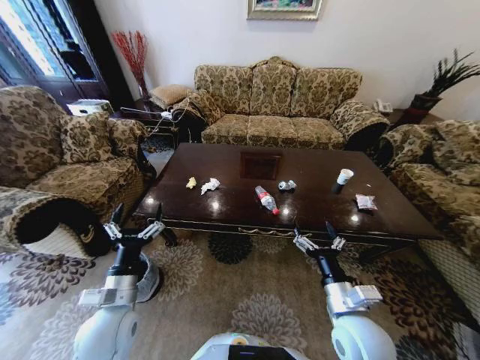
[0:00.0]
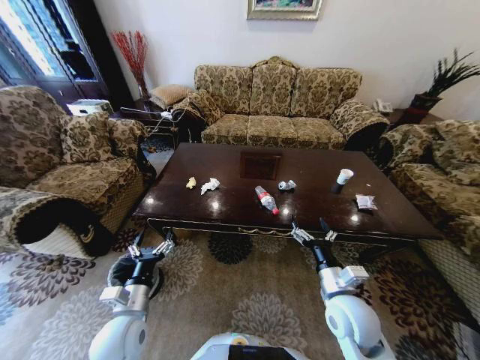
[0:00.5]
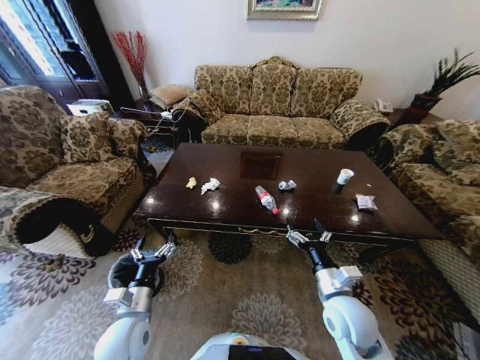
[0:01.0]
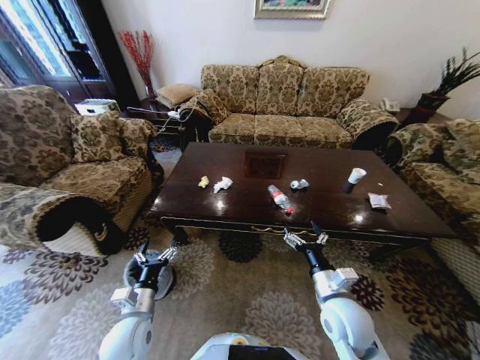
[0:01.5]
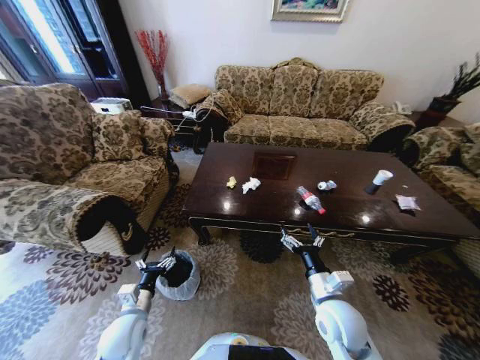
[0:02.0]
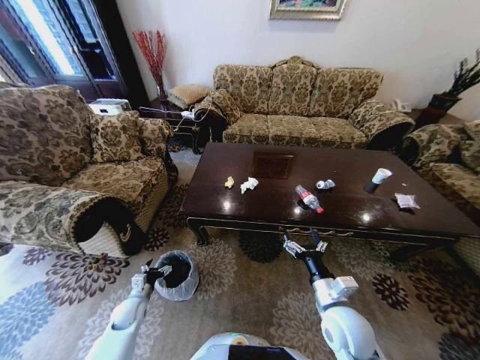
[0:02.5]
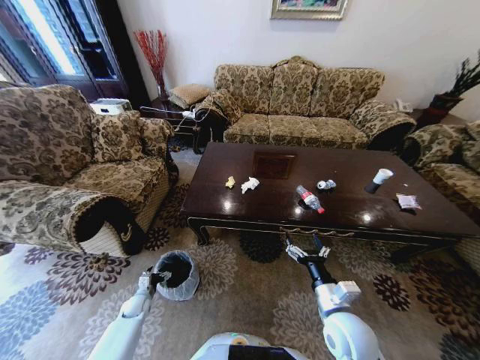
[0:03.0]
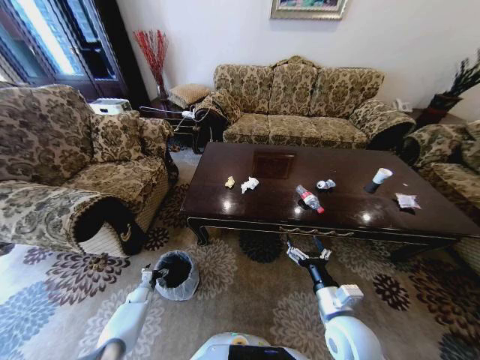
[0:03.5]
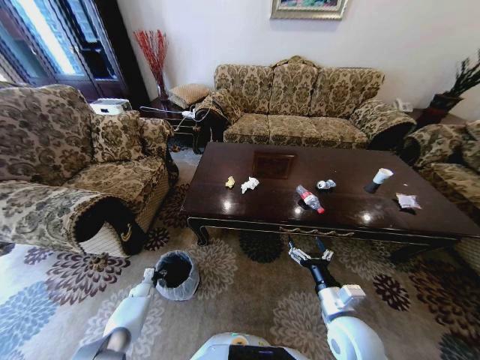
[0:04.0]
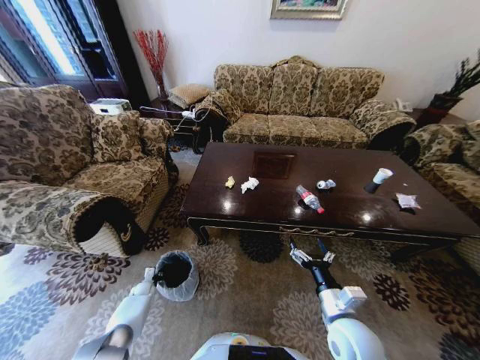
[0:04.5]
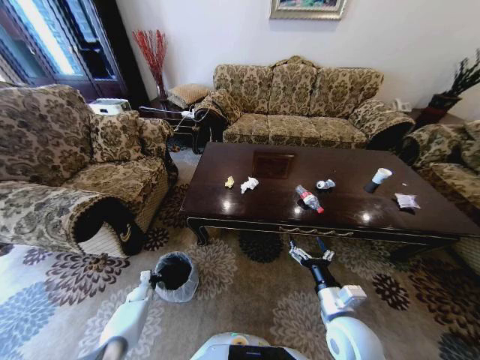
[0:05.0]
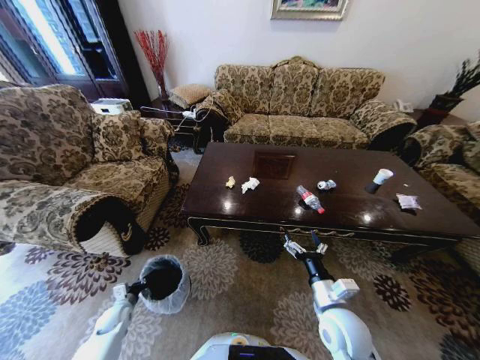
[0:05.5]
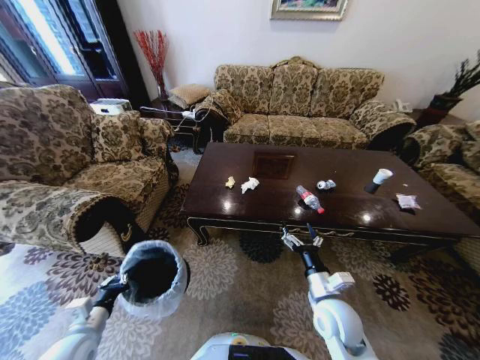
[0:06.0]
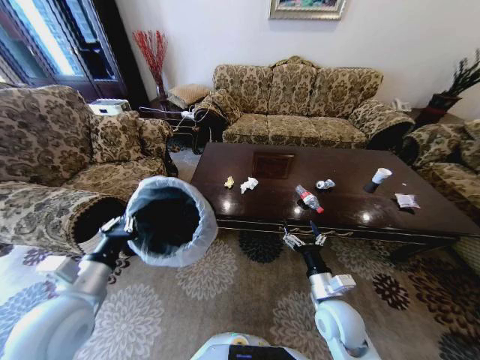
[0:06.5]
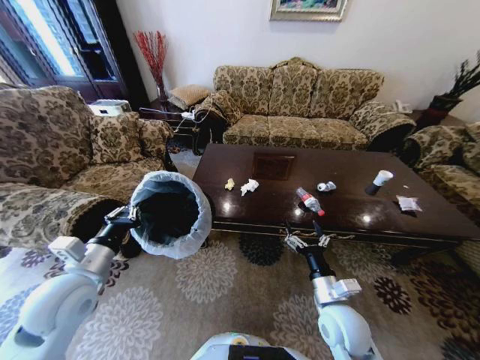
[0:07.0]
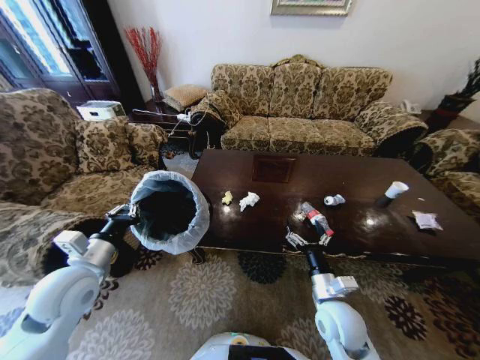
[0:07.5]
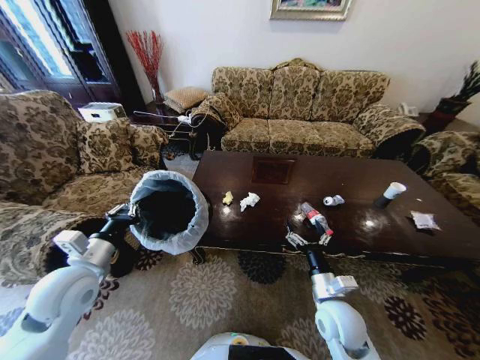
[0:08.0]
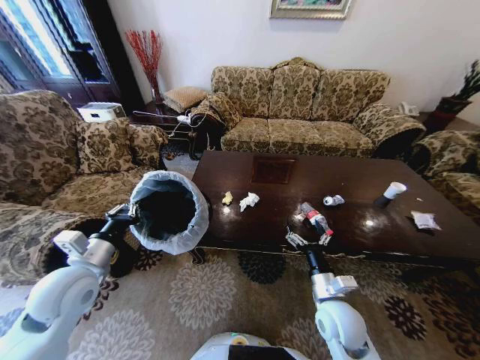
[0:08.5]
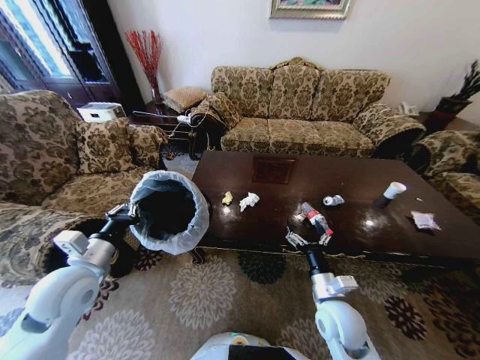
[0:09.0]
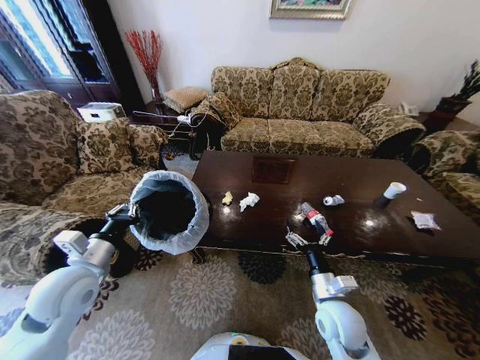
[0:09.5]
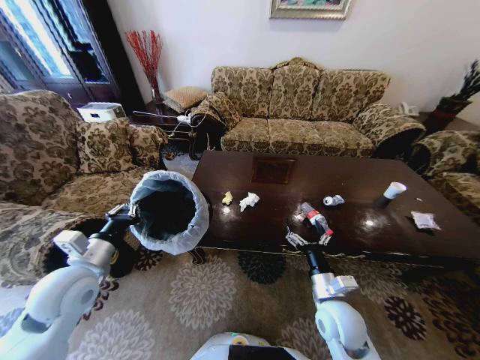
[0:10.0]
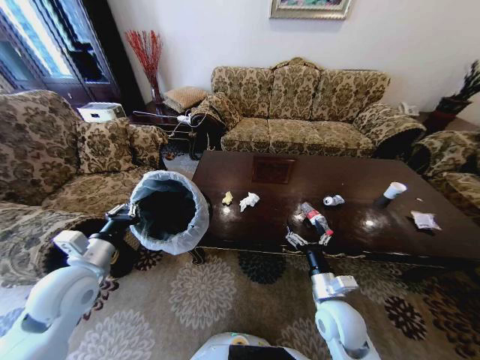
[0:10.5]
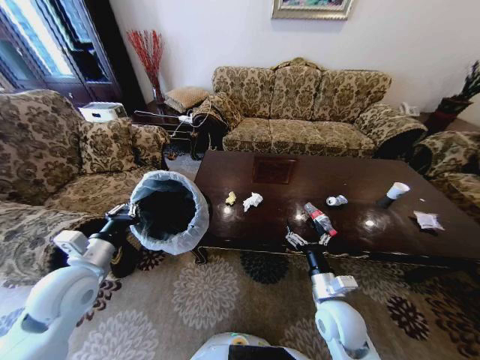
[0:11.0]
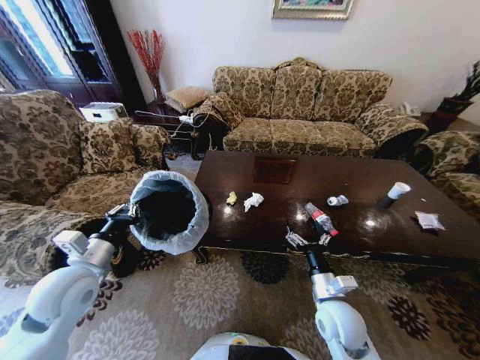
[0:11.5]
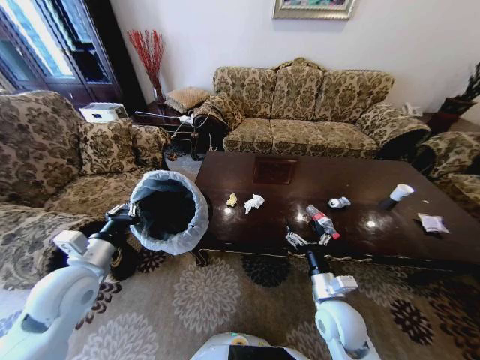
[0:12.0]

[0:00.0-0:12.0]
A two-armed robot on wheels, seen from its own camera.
Task of the whole recording: Move to the front of the table and place the trash on the table into the trash bin.
0:02.0 to 0:04.0: The left gripper is displaced downward, forward and to the left by roughly 35 cm.
0:04.0 to 0:06.0: The left gripper moves upward and backward, approximately 35 cm, and closes its fingers.
0:06.0 to 0:08.0: The left gripper goes roughly 20 cm upward and forward.
0:08.0 to 0:12.0: Neither gripper changes place.

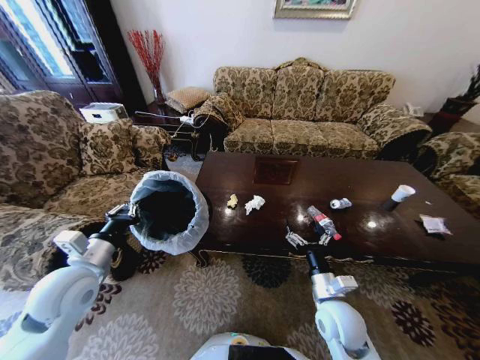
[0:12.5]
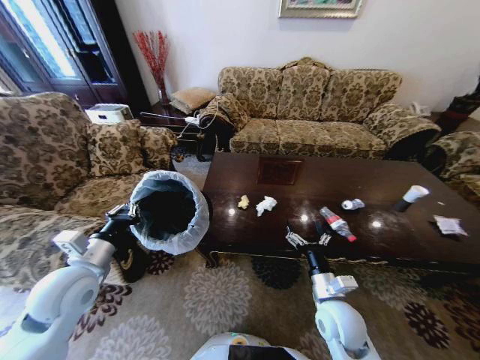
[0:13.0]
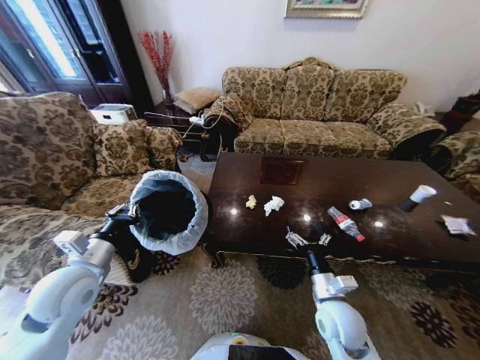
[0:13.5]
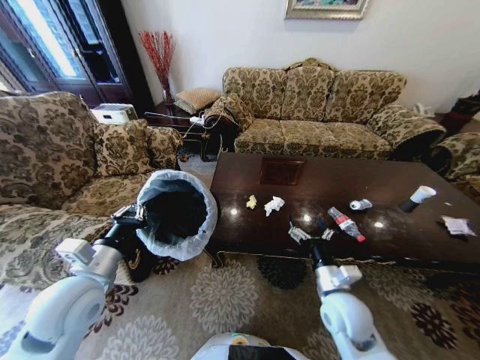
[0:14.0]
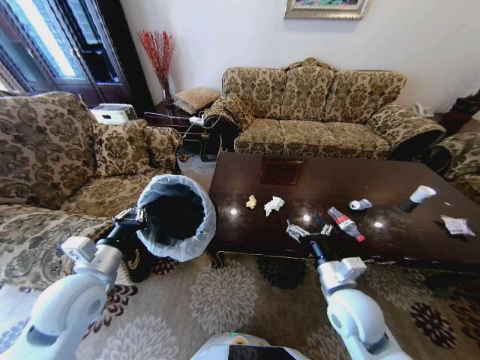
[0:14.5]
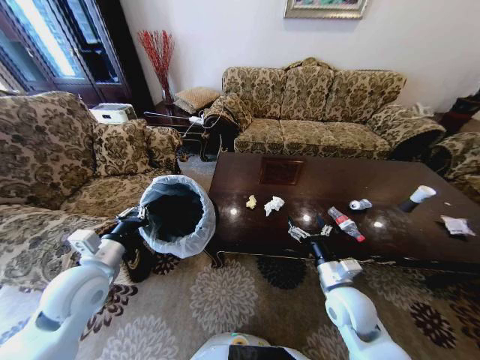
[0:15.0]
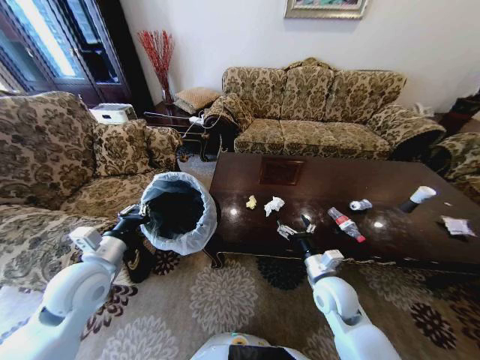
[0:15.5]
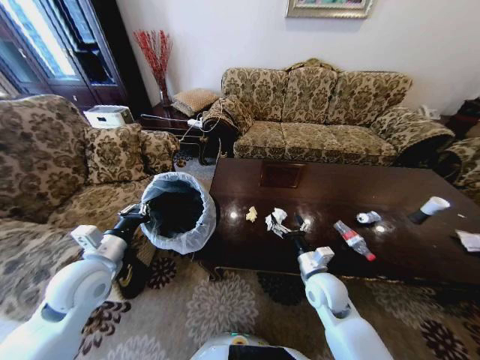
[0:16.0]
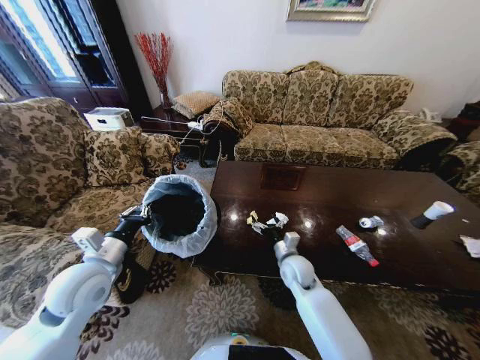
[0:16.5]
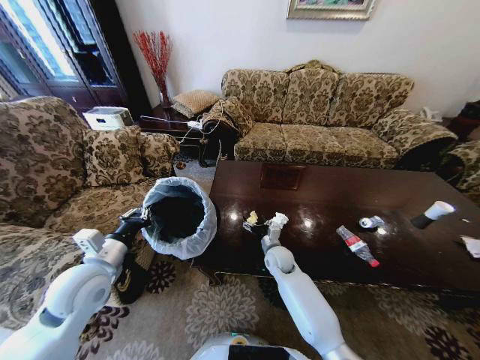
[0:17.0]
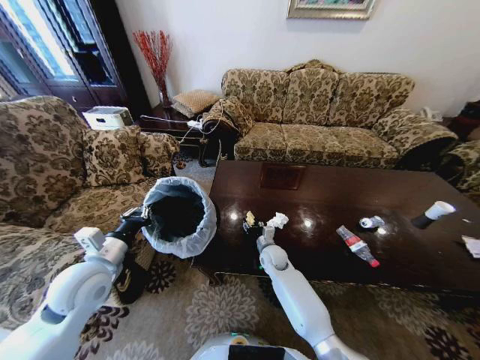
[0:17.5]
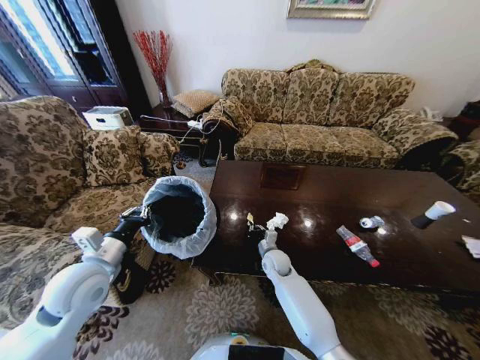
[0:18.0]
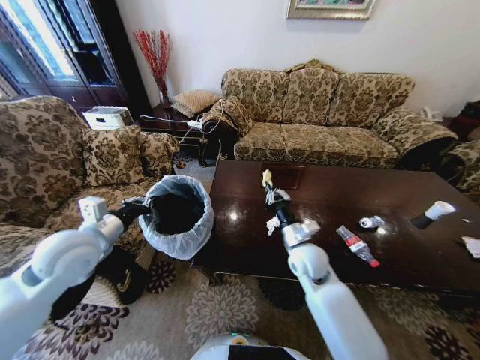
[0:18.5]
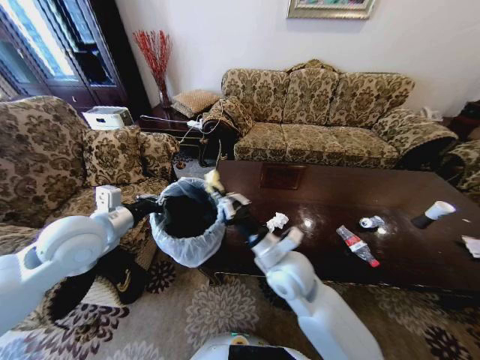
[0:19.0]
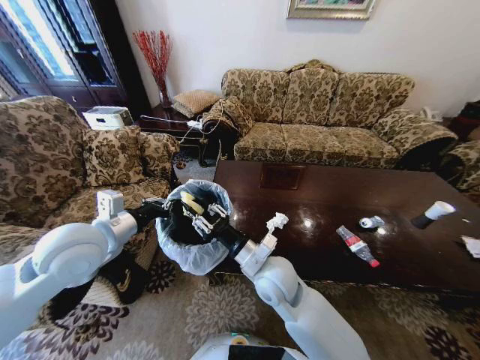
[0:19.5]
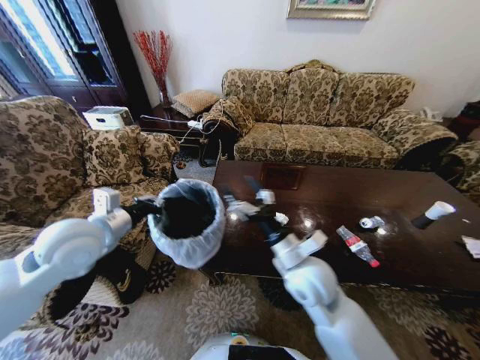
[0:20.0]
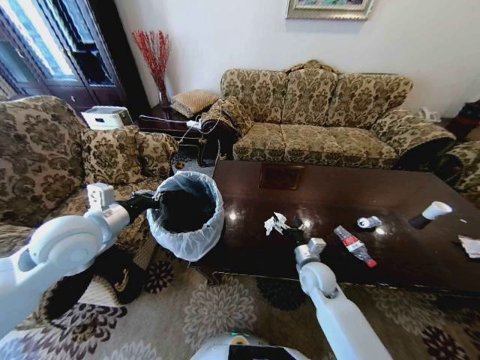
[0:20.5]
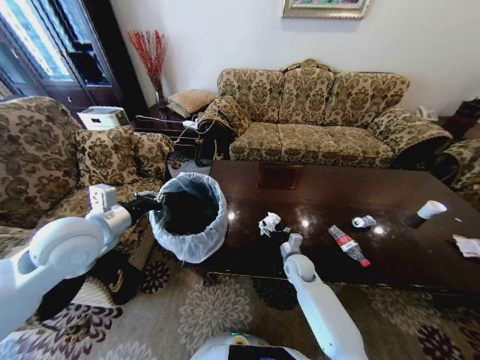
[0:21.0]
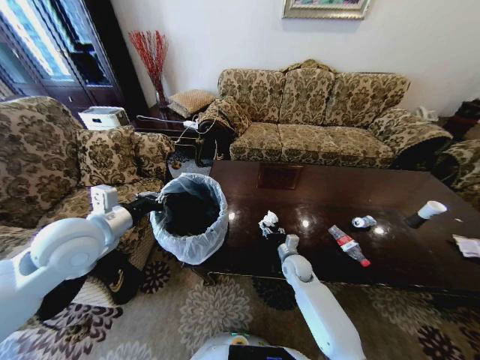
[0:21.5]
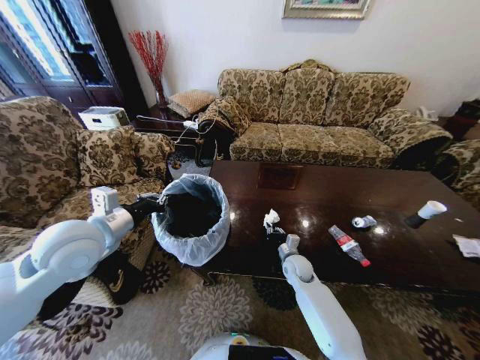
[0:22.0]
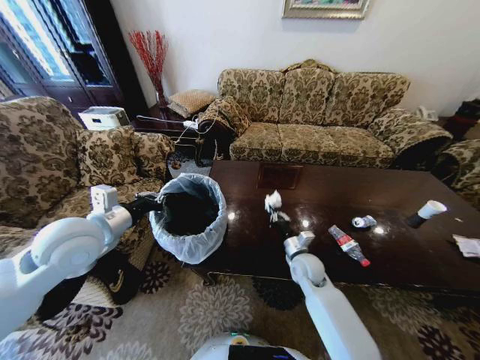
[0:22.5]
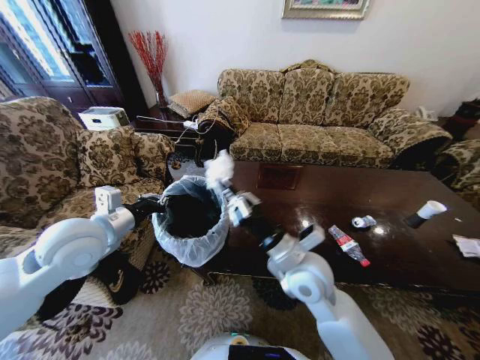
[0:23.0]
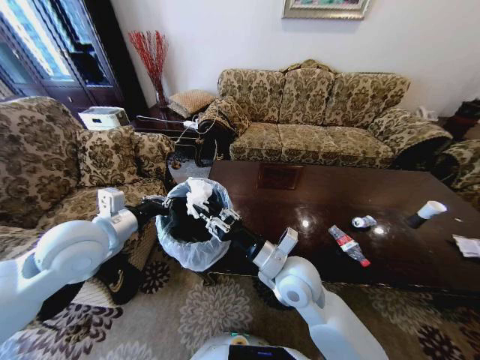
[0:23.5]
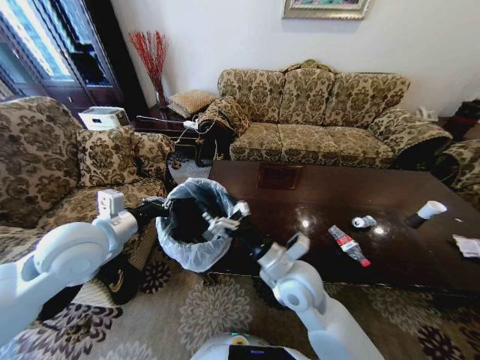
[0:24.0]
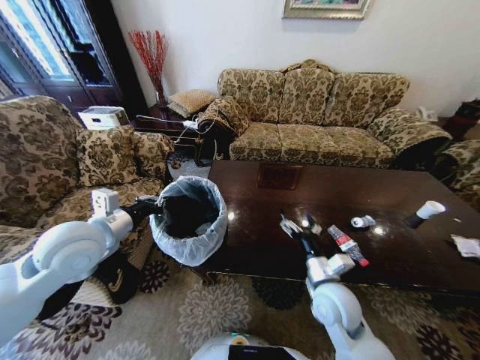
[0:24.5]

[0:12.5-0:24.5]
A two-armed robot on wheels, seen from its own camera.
Task of the whole recording: Move to the front of the table and place the trash on the table into the trash bin.
0:12.5 to 0:14.5: The right gripper is displaced upward by roughly 5 cm.
0:14.5 to 0:16.5: The right gripper moves forward, downward and to the left, some 15 cm.
0:16.5 to 0:18.5: The grippers both shift upward by approximately 5 cm. The right gripper closes its fingers.
0:18.5 to 0:20.5: The right gripper moves downward, about 10 cm, reaches about 10 cm to the left, then returns, and opens.
0:20.5 to 0:22.5: The right gripper goes downward and returns, roughly 5 cm each way, and closes its fingers.
0:22.5 to 0:24.5: The right gripper heads backward and upward, covering roughly 15 cm, and opens up.

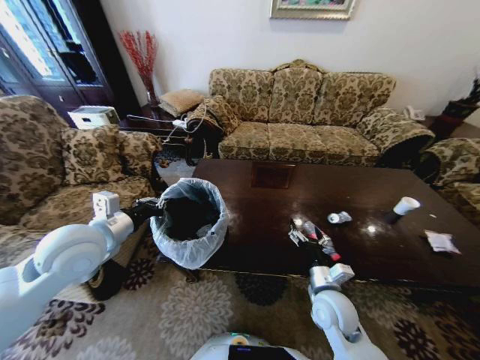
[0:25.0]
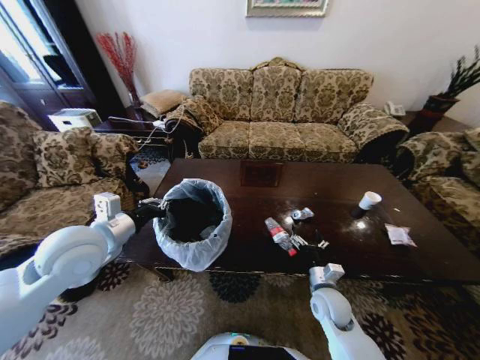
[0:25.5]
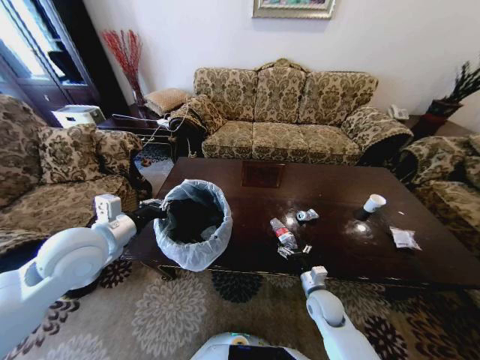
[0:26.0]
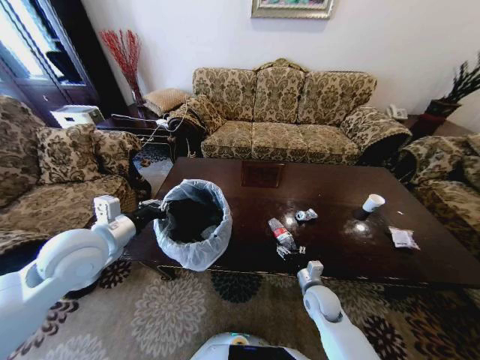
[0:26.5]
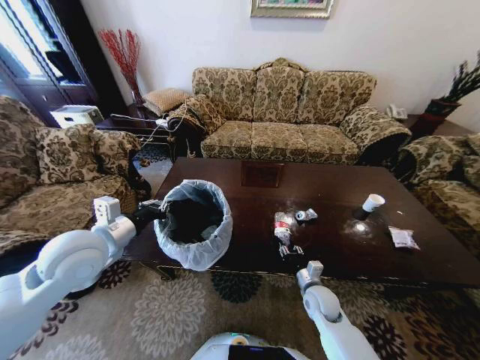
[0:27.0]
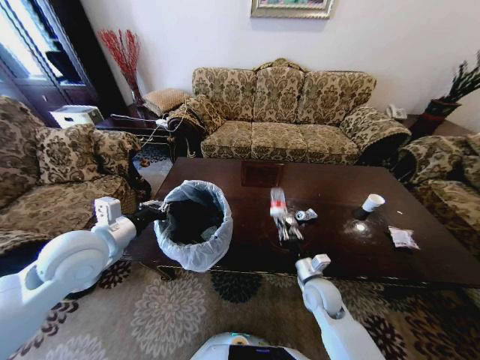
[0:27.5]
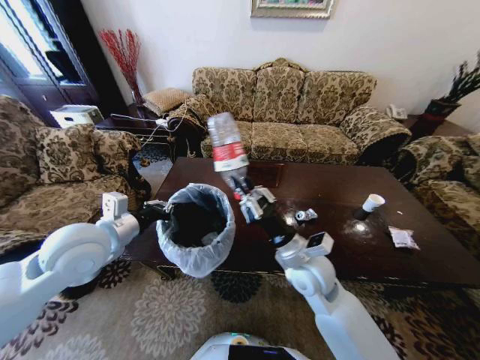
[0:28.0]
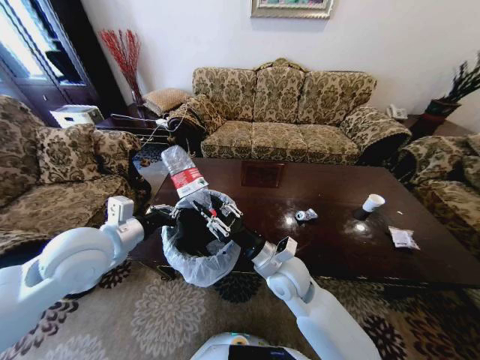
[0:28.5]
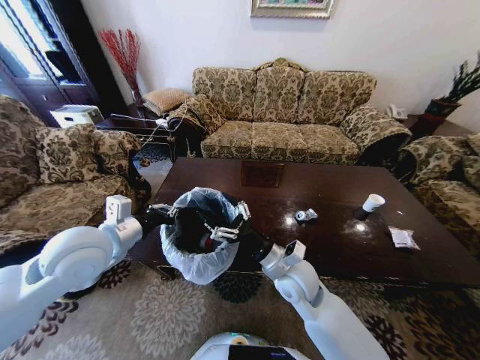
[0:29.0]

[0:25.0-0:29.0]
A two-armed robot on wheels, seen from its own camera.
Task of the whole recording: Move to the front of the table and place the trash on the table into the trash bin.
0:25.0 to 0:27.0: The right gripper goes approximately 10 cm downward, and closes up.
0:27.0 to 0:29.0: The right gripper heads upward and to the left, covering roughly 20 cm, and opens its fingers.
